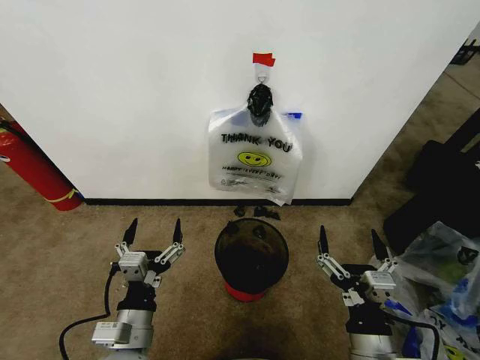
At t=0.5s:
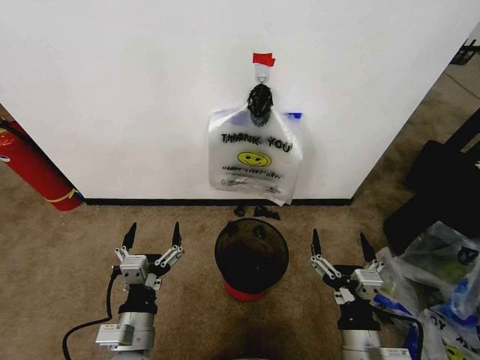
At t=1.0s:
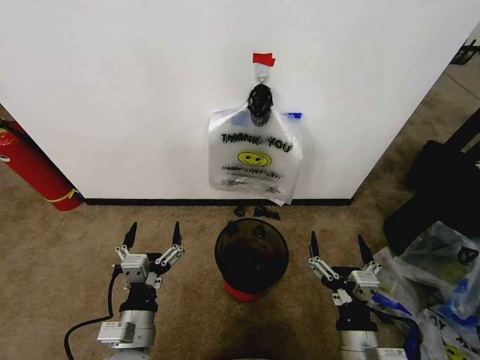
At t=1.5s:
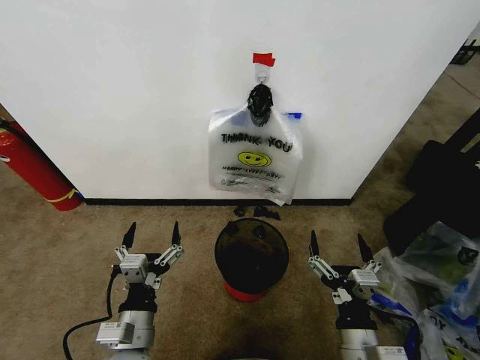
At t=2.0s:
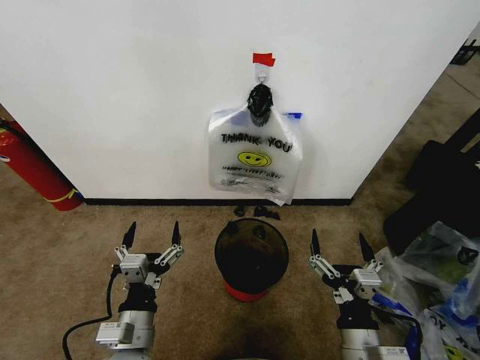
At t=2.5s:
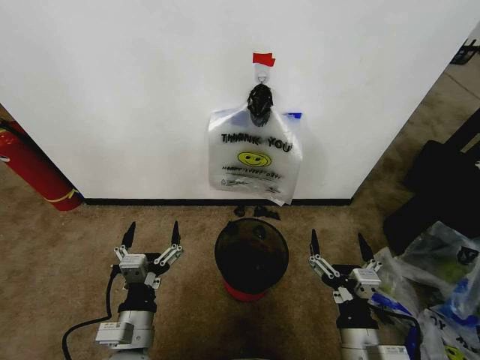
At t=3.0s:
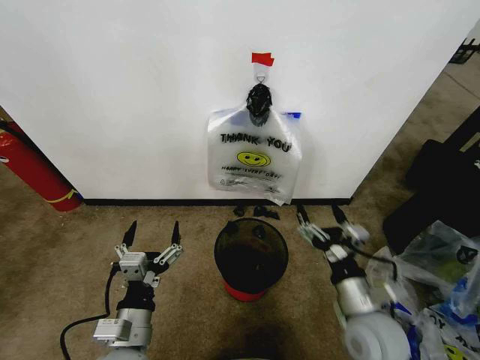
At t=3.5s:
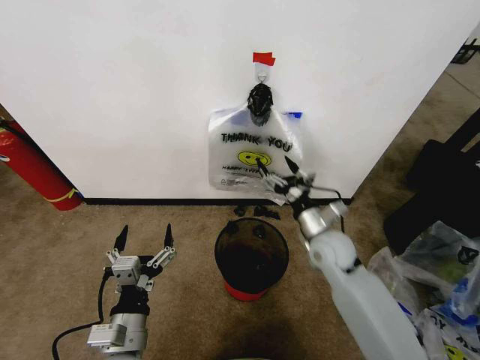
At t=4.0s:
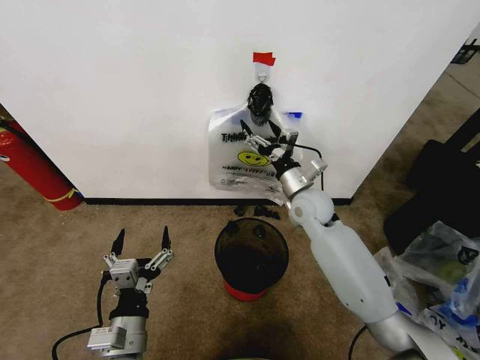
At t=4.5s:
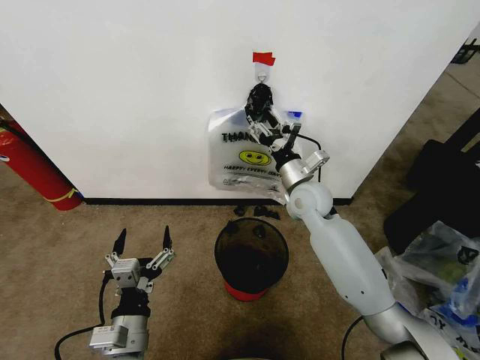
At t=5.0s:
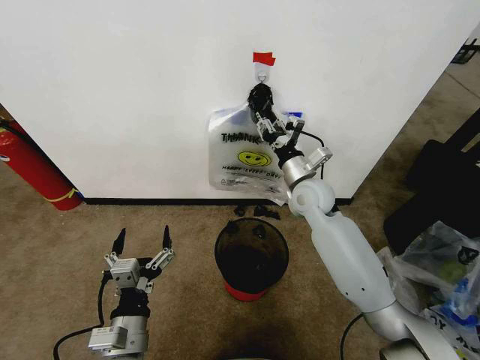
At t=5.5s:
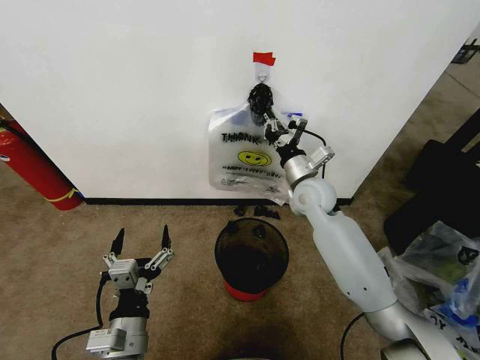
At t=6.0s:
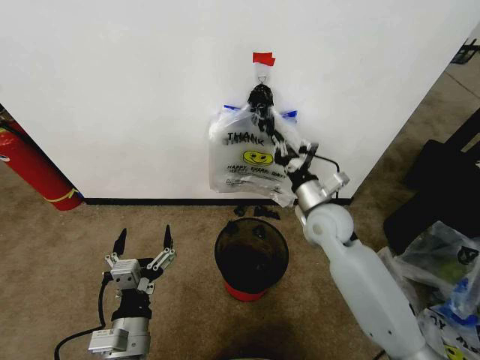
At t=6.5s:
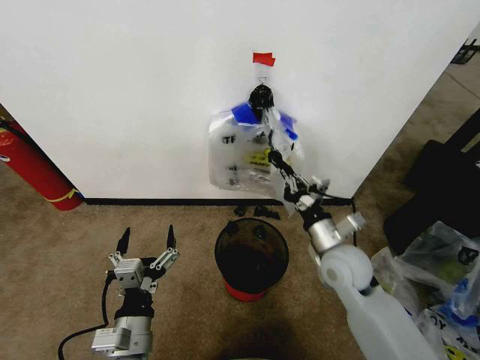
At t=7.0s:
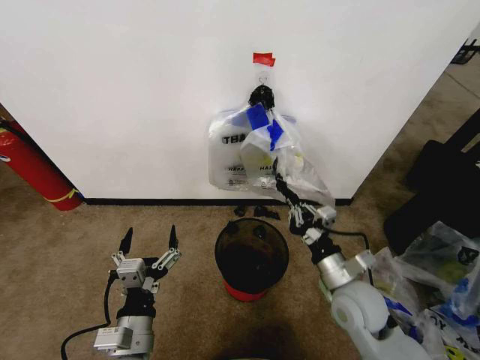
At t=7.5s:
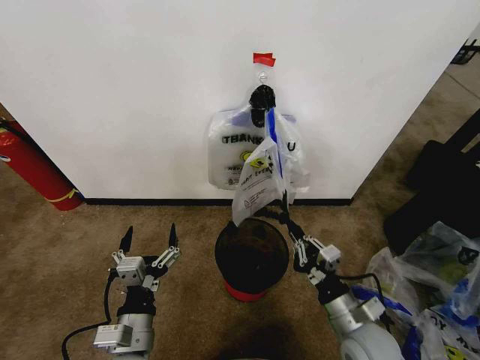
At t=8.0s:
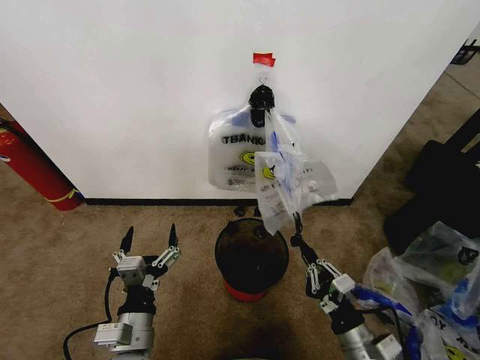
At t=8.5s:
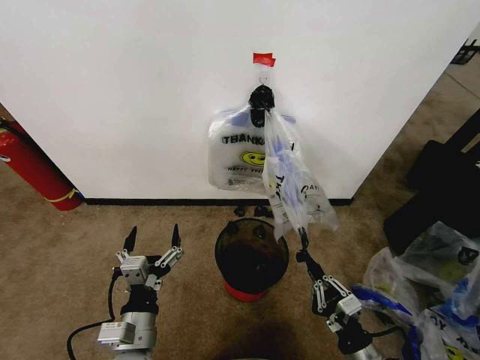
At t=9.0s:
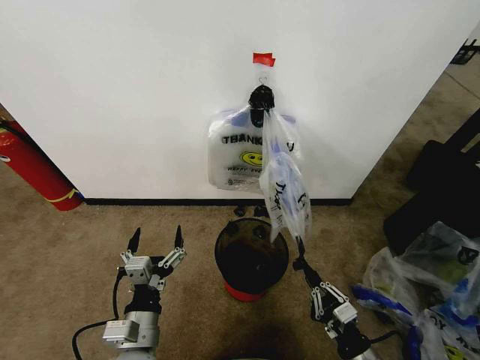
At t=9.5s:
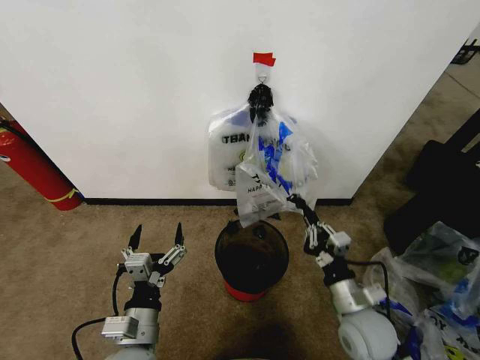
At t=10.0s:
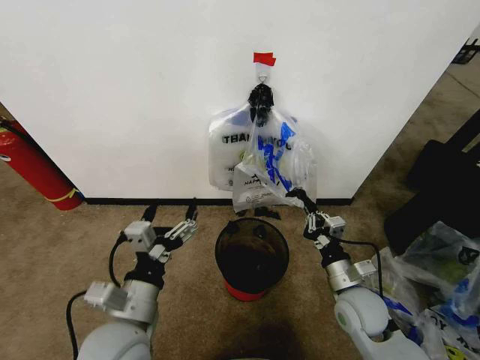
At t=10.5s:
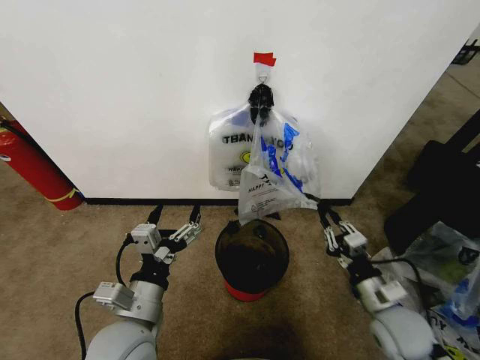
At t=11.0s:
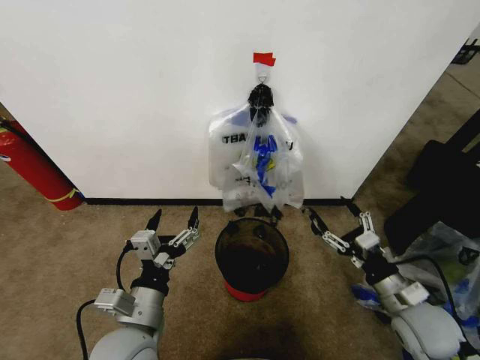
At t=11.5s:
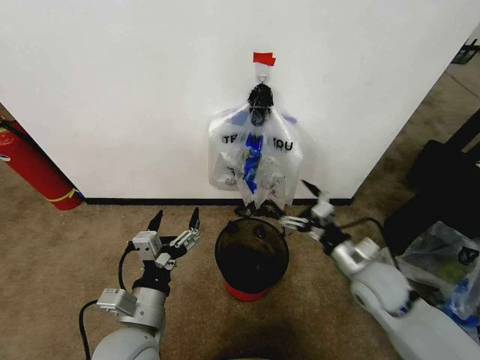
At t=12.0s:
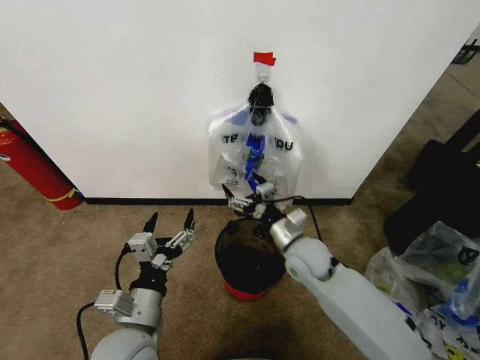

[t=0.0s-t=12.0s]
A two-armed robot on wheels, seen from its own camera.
Task of the whole recording: Pick up the garbage bag from the wall and place it over the trash bin.
t=2.0s to t=4.0s: The right gripper goes some 35 cm forward.
t=4.0s to t=6.0s: The right gripper moves roughly 5 cm, and closes.
t=6.0s to t=8.0s: The right gripper shifts roughly 30 cm backward and downward.
t=8.0s to t=10.0s: The left gripper is displaced upward by about 10 cm, while the right gripper travels forward by about 10 cm.
t=10.0s to t=12.0s: The right gripper is displaced to the left, forward and upward by roughly 15 cm, and opens its fingers.

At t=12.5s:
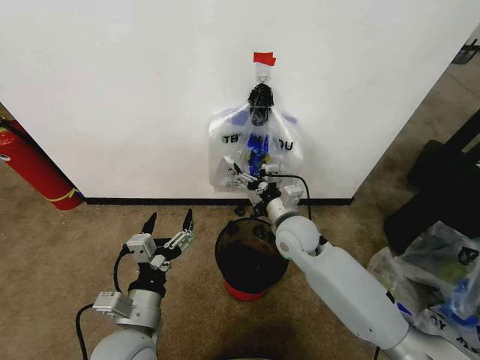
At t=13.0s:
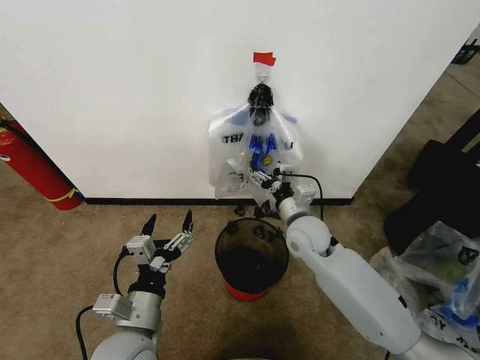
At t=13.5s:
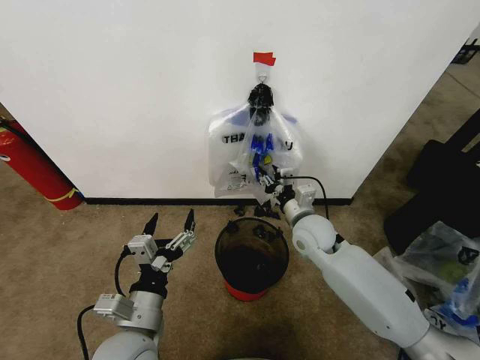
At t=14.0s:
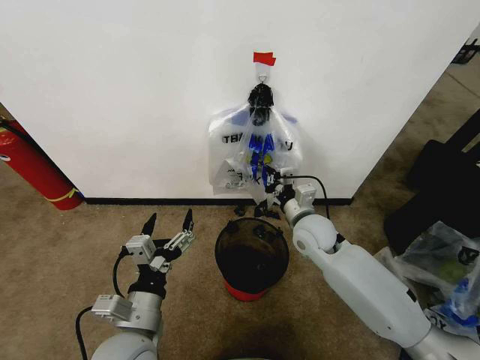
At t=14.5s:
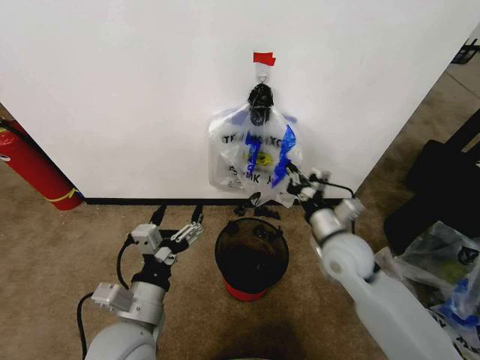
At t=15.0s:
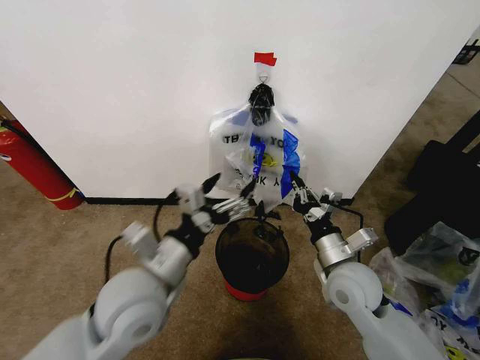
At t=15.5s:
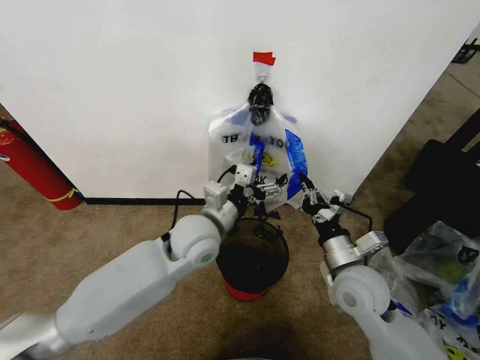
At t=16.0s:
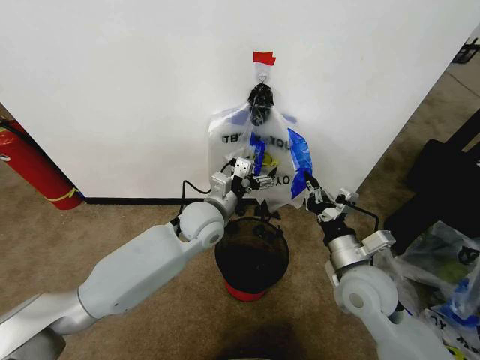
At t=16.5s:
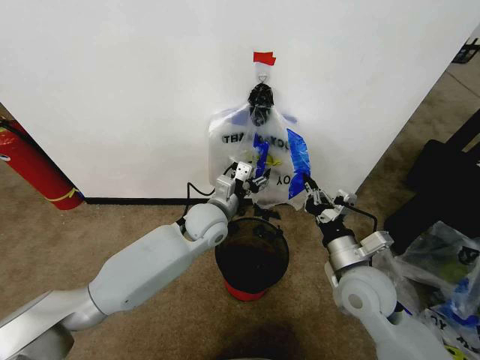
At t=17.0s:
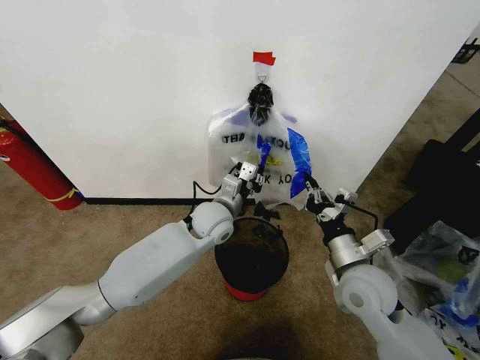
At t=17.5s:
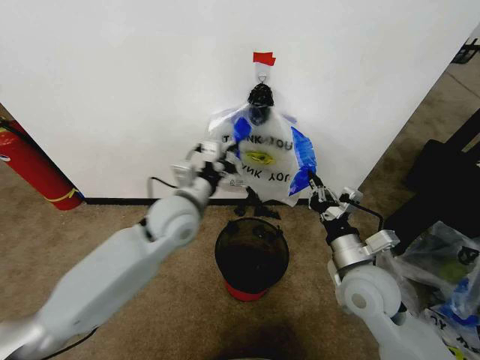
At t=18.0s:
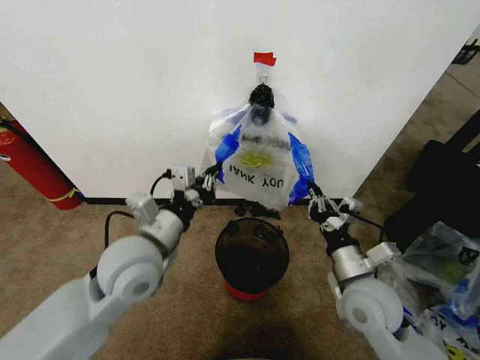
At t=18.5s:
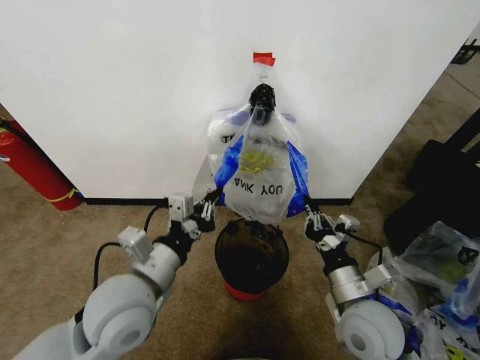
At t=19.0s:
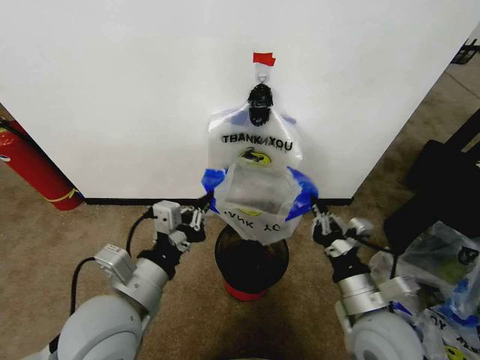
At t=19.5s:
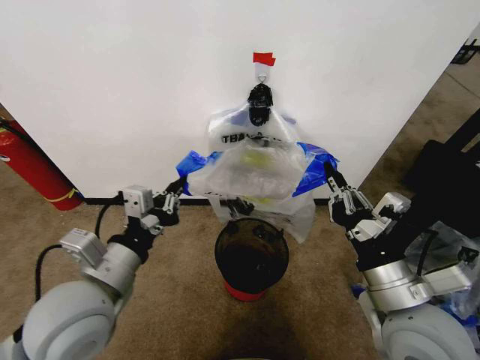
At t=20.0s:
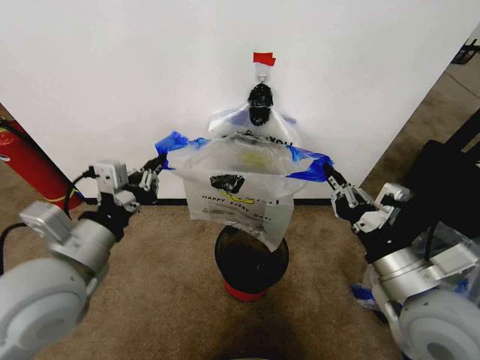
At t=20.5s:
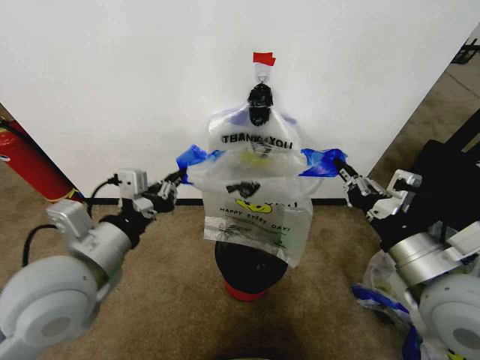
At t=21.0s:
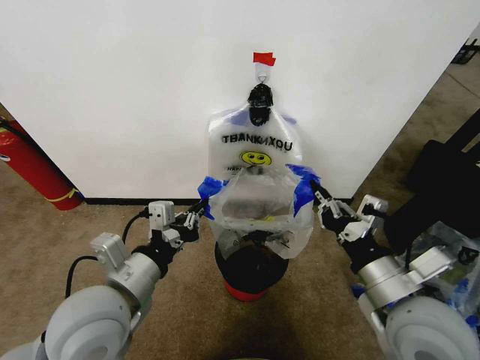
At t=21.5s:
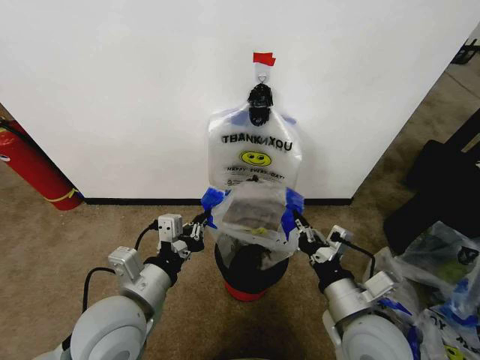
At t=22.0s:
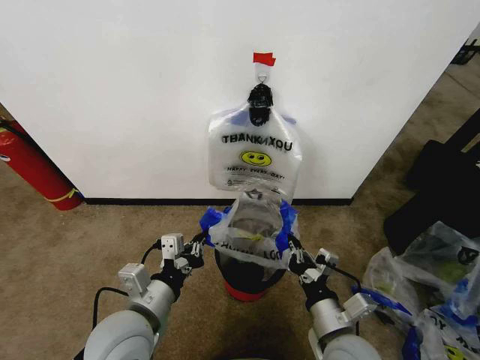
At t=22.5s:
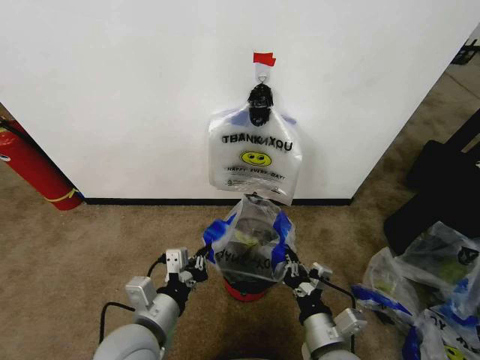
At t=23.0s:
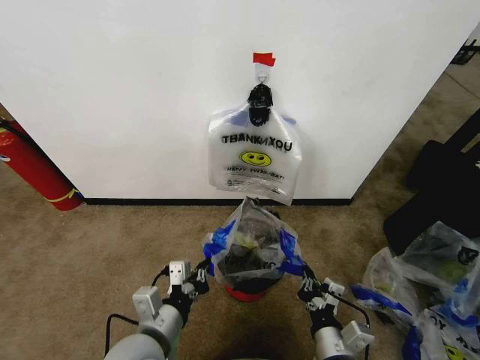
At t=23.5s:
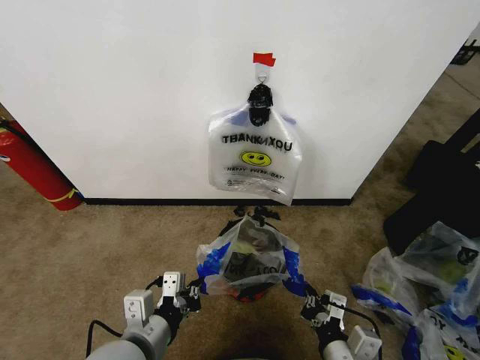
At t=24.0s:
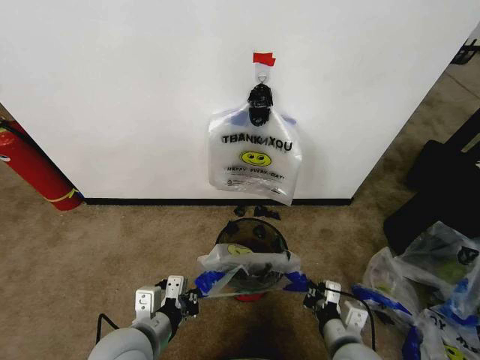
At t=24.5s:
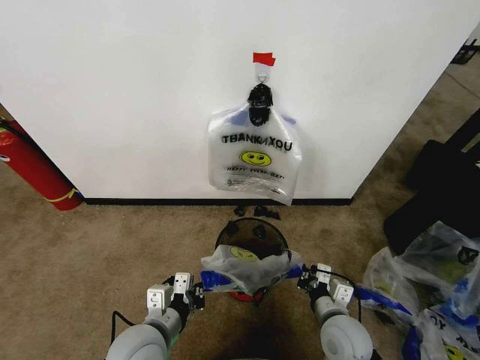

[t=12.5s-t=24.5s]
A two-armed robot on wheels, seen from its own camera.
Task of the whole recording: Pick up the garbage bag from the wall and place it over the trash bin.
t=12.5s to t=14.5s: The right gripper moves to the right and backward, approximately 10 cm, and closes up.
t=14.5s to t=16.5s: The left gripper moves forward and to the right, some 25 cm; the right gripper travels backward by about 5 cm.
t=16.5s to t=18.5s: The left gripper travels backward and to the left by about 25 cm, and closes its fingers, while the right gripper travels backward by some 5 cm.
t=18.5s to t=20.5s: The left gripper moves upward and to the left, some 10 cm. The right gripper shifts roughly 15 cm upward and to the right.
t=20.5s to t=22.5s: The left gripper goes approximately 15 cm downward and to the right. The right gripper moves downward and to the left, some 20 cm.
t=22.5s to t=24.5s: The right gripper goes approximately 5 cm forward.

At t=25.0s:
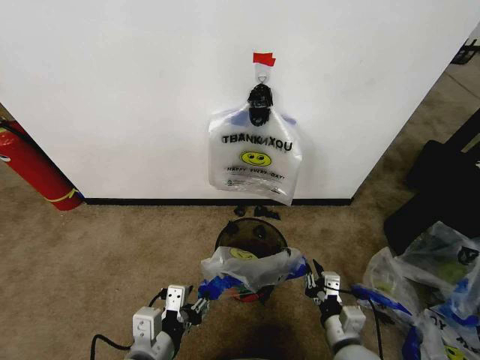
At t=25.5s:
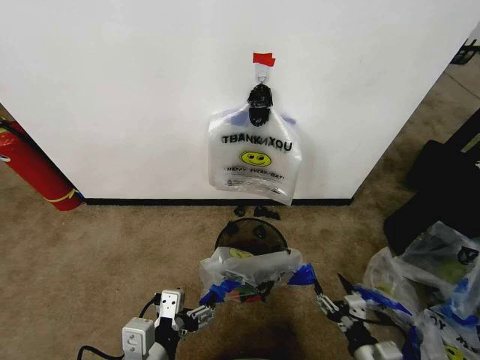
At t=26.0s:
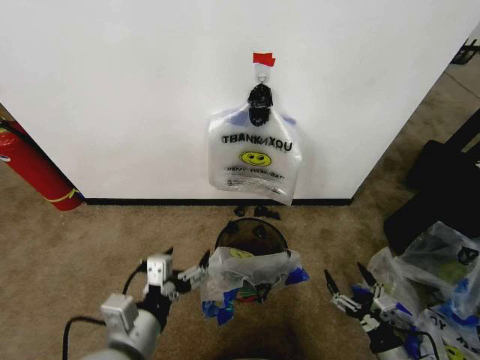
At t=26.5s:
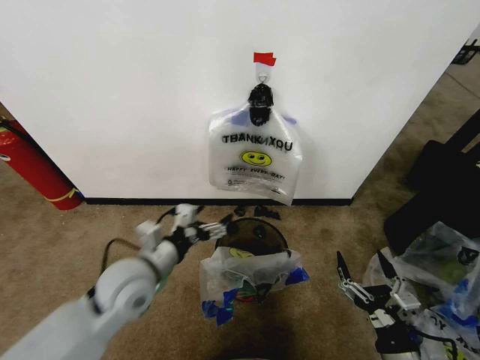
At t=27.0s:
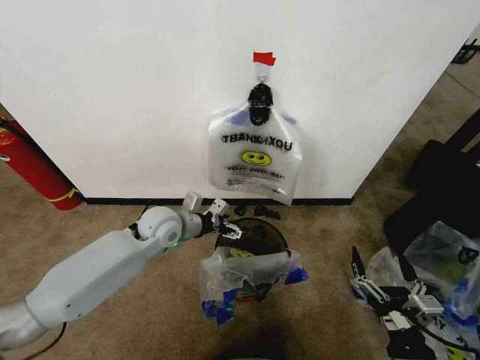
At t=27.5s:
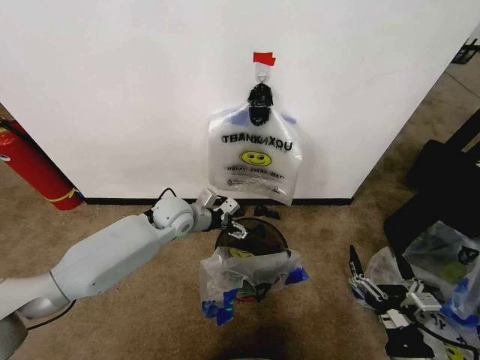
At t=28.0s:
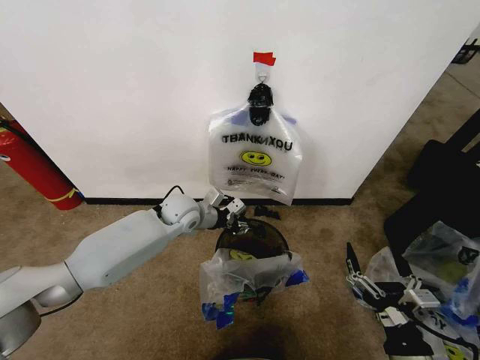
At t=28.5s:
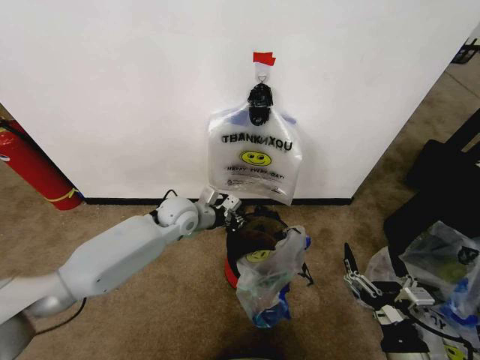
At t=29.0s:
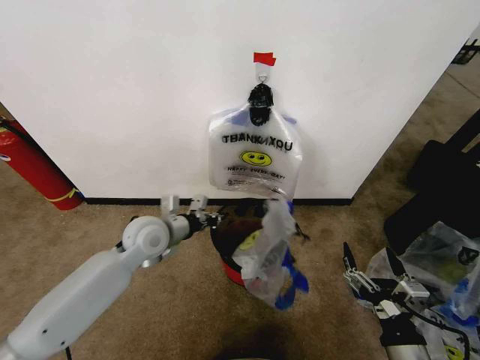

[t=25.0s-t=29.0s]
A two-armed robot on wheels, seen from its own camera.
Task of the whole recording: Pick up the garbage bag from the wall and place it over the trash bin.
t=25.0s to t=27.0s: The right gripper shifts approximately 15 cm backward, upward and to the right, and opens. Meanwhile the left gripper is displaced forward by approximately 30 cm, and opens.
t=27.0s to t=29.0s: The left gripper moves roughly 5 cm forward and comes back, and closes up.
